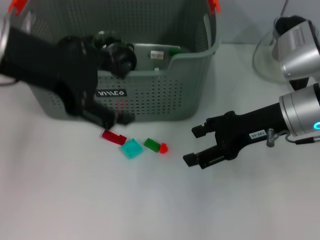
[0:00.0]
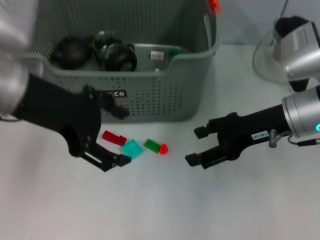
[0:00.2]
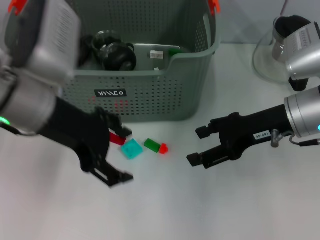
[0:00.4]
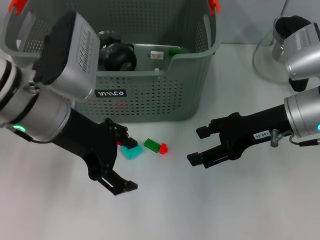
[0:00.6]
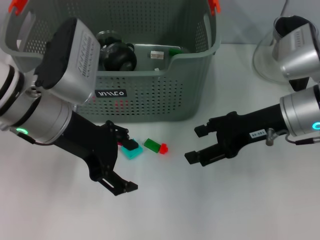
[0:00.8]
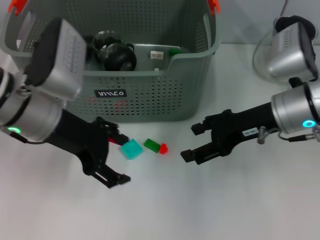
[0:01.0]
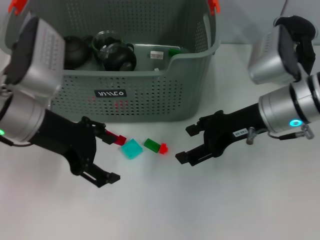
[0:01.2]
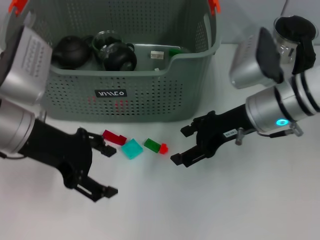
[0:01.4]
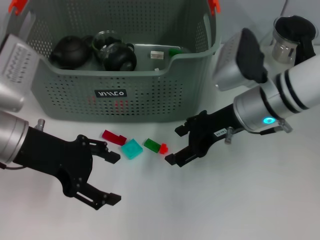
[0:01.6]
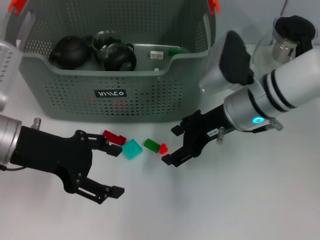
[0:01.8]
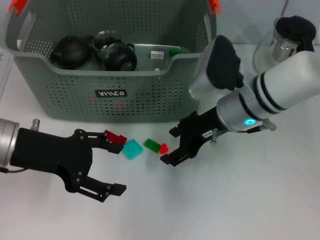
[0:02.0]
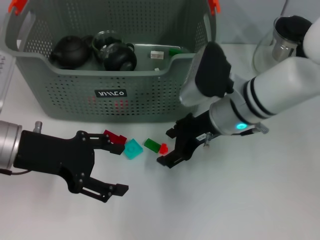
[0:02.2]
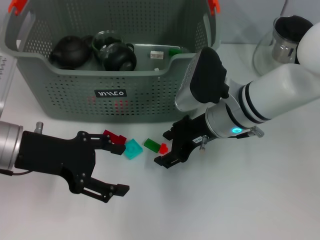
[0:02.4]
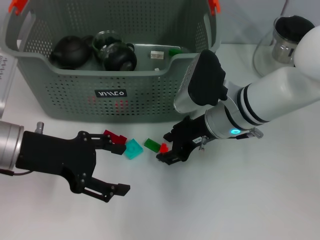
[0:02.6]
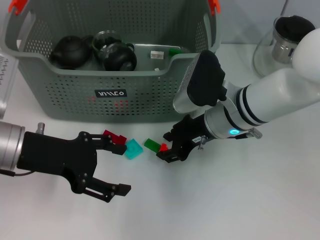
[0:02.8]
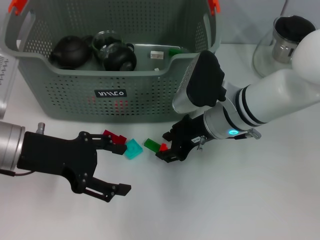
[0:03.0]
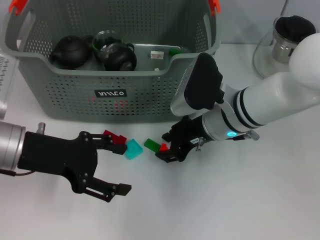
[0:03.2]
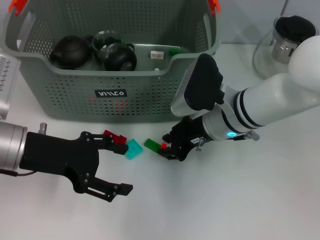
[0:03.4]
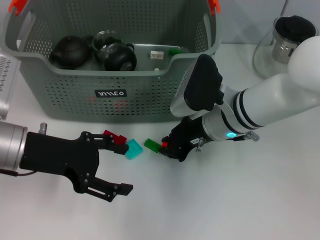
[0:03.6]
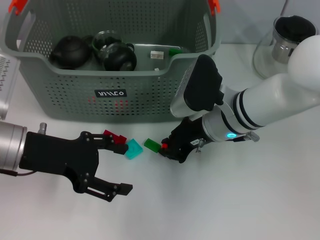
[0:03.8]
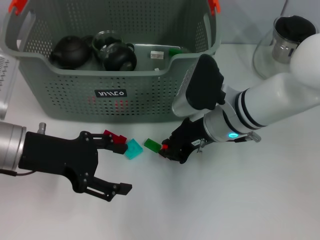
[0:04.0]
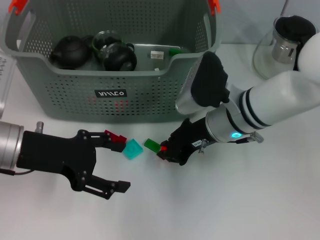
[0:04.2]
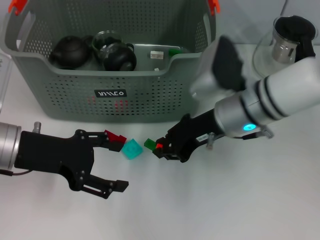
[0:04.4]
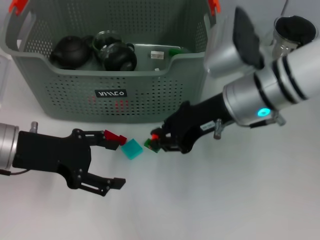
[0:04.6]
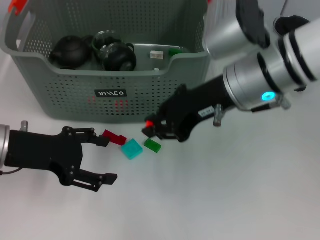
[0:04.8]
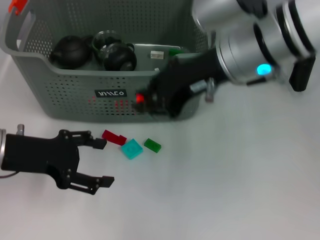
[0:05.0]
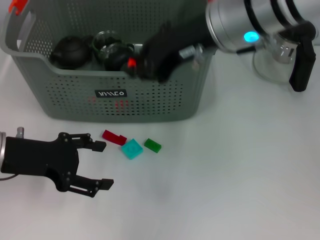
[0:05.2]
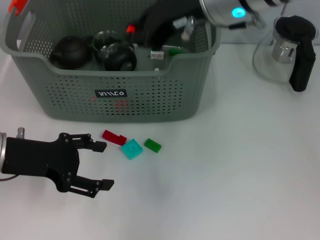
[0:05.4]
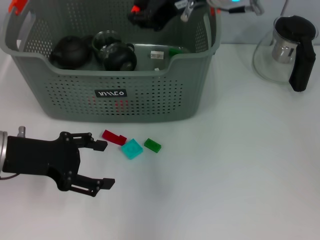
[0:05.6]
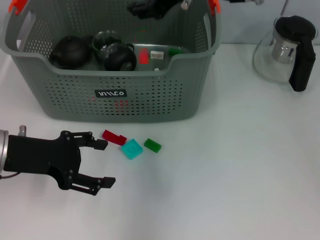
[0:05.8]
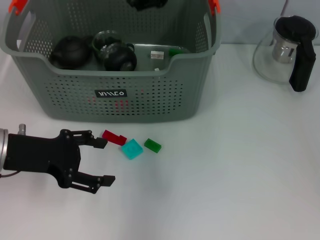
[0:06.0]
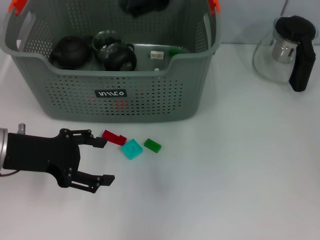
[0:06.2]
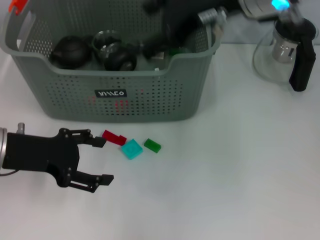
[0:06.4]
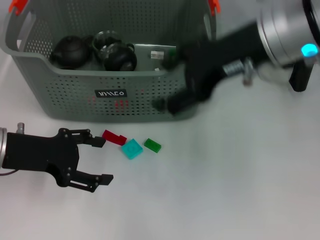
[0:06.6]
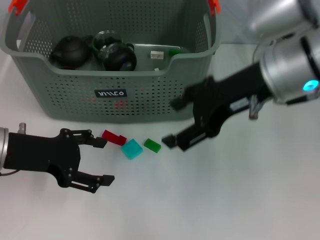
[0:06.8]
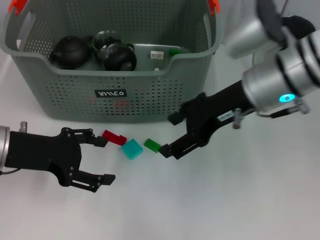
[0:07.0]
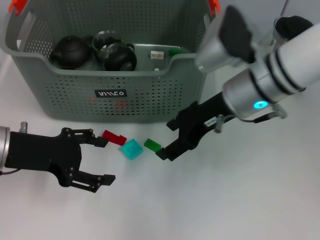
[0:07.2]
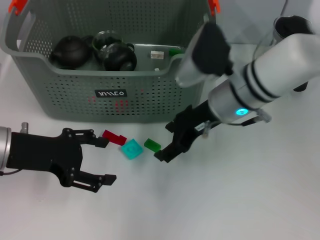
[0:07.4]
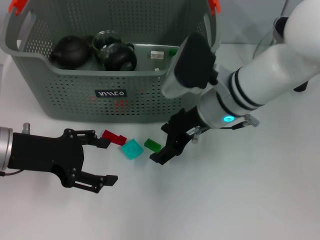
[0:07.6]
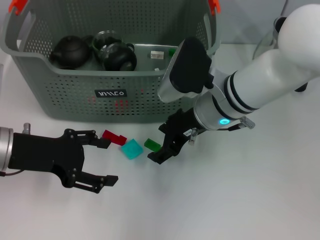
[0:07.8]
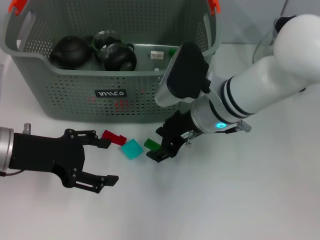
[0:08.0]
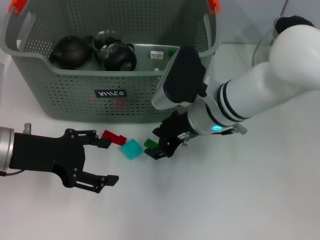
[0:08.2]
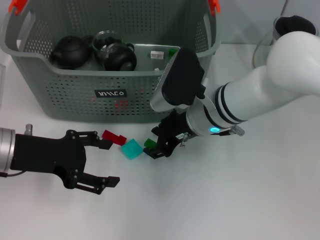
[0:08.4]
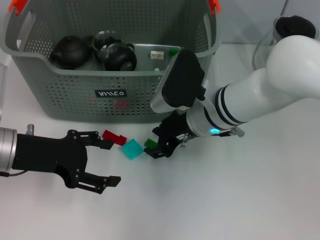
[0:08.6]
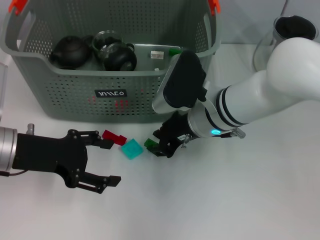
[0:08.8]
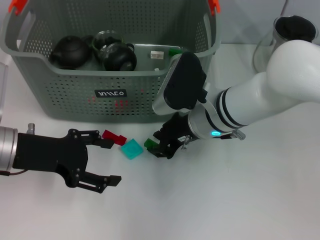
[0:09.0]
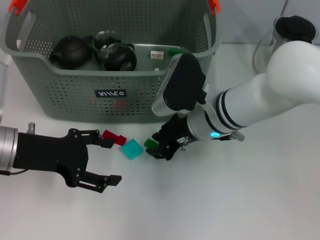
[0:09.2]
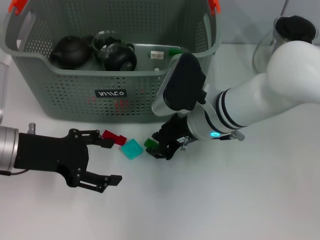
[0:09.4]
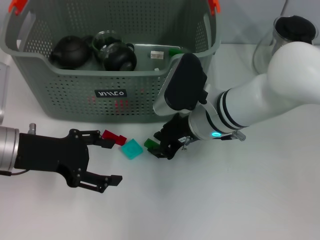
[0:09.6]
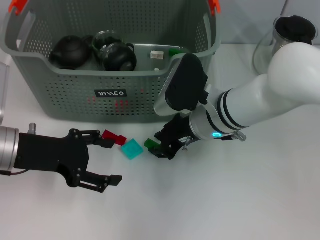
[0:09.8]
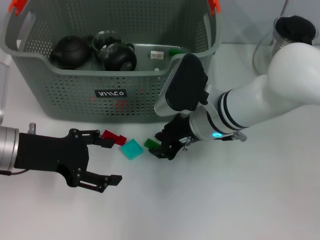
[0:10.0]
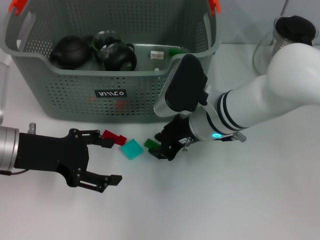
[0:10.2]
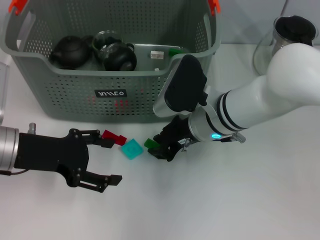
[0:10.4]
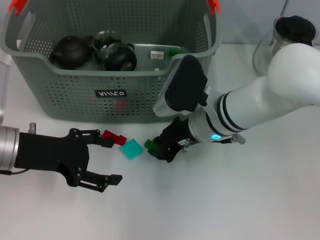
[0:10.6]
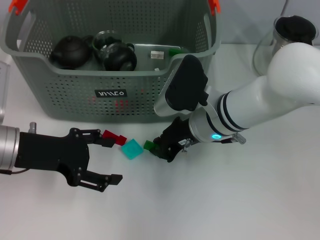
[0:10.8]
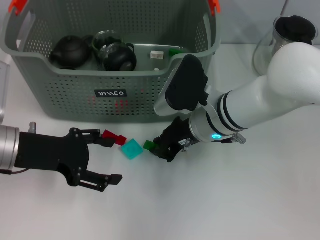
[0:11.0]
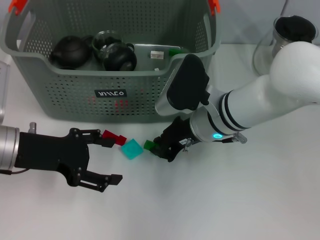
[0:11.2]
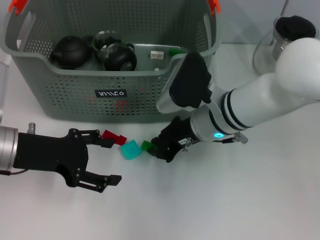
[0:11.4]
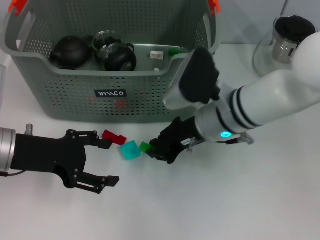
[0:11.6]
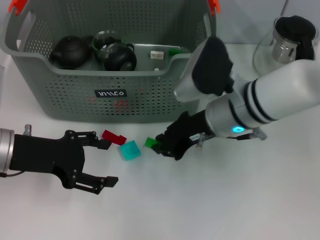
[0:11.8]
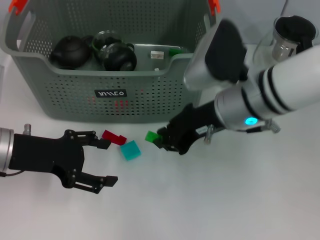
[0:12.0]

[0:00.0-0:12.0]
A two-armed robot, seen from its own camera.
Task of the whole recording: pick up the teacup on the table and place it into the storage bin, pick up the block on the table and place it into the storage bin.
Step, 0:00.0 to 0:03.6: Grasp the orange block with right gripper.
Step, 0:04.0 to 0:05.8: Place the orange block in the storage box with right gripper.
Step, 0:06.0 to 0:11.0: Grasp the green block with right gripper.
0:00.0 to 0:01.6: The left gripper heads downward, covering approximately 10 cm, while the right gripper shifts about 5 cm to the left.
0:01.6 to 0:03.0: The right gripper shifts by roughly 5 cm, and closes its fingers.
0:03.0 to 0:04.4: The right gripper closes up.
0:04.4 to 0:06.0: The right gripper heads upward and forward, covering roughly 20 cm, and opens.
0:06.0 to 0:07.6: The right gripper moves downward, approximately 15 cm, and opens its fingers.
0:07.6 to 0:09.0: The right gripper closes up.
0:09.0 to 0:10.4: The two grippers keep their place.
0:10.4 to 0:12.0: The right gripper goes about 5 cm upward.

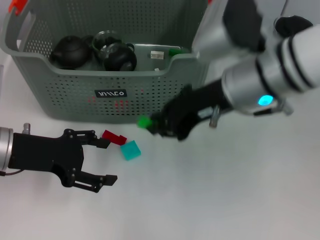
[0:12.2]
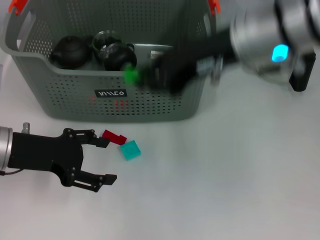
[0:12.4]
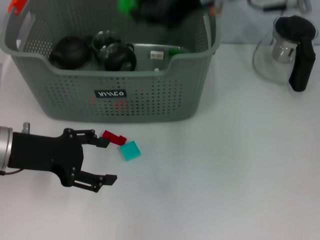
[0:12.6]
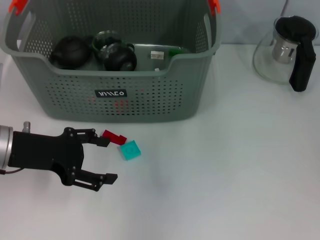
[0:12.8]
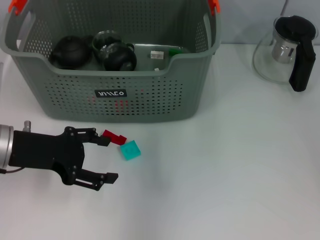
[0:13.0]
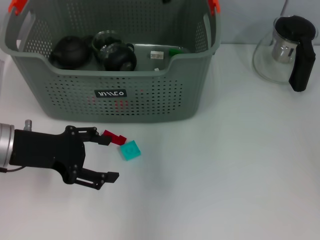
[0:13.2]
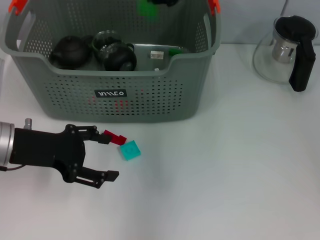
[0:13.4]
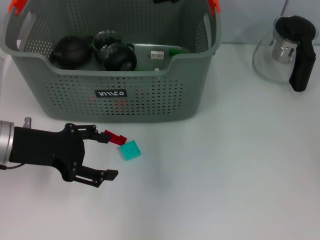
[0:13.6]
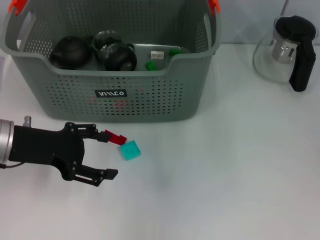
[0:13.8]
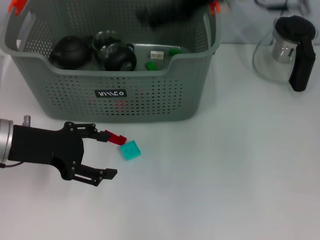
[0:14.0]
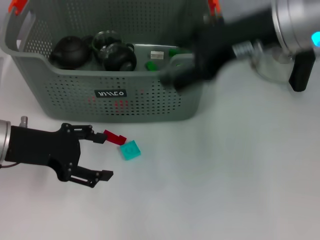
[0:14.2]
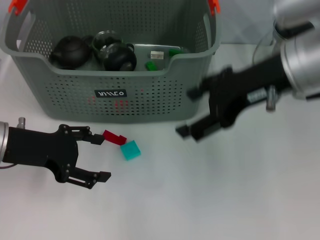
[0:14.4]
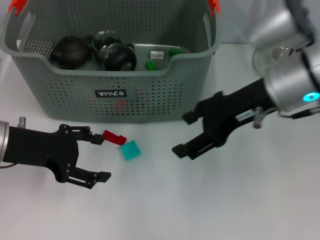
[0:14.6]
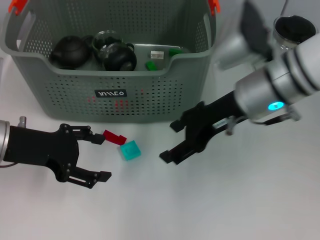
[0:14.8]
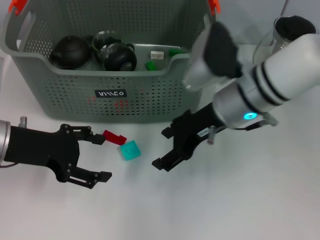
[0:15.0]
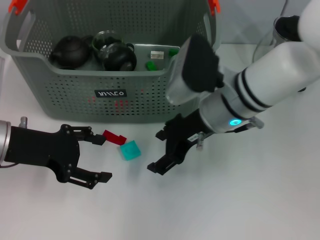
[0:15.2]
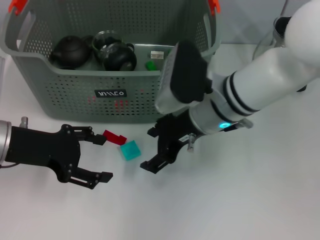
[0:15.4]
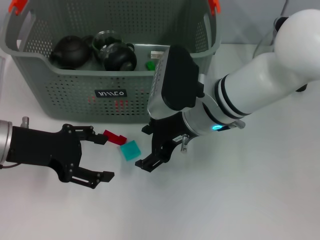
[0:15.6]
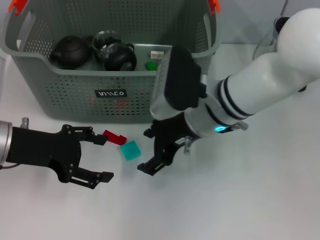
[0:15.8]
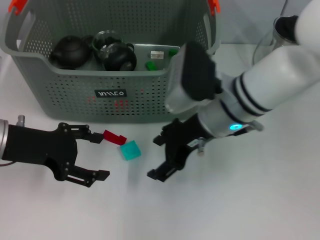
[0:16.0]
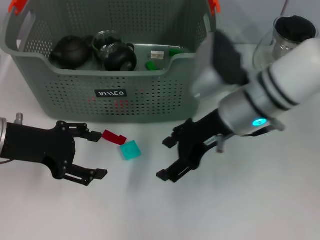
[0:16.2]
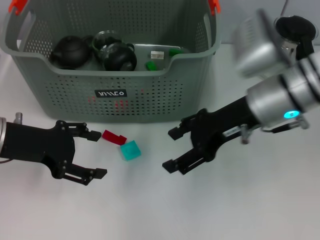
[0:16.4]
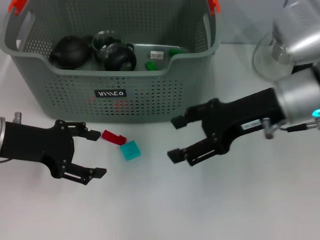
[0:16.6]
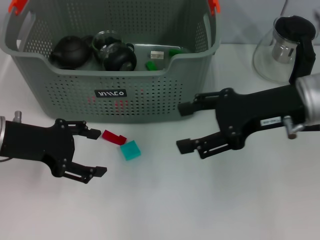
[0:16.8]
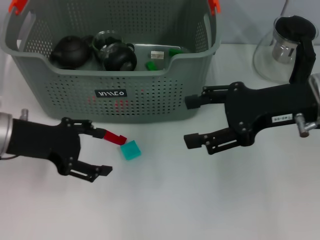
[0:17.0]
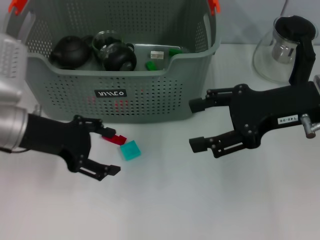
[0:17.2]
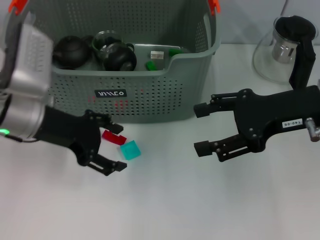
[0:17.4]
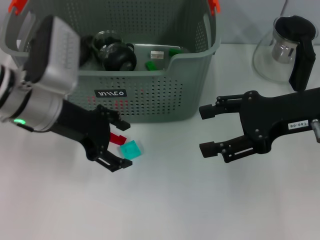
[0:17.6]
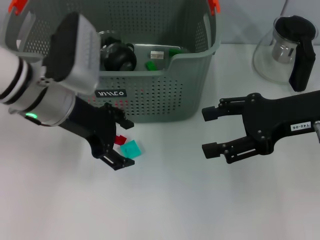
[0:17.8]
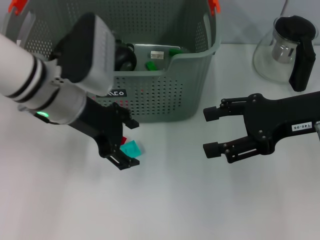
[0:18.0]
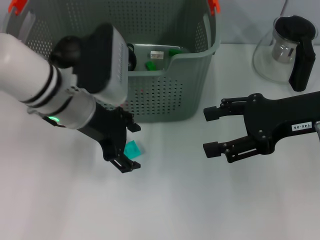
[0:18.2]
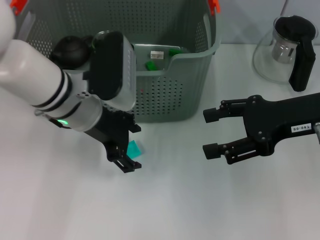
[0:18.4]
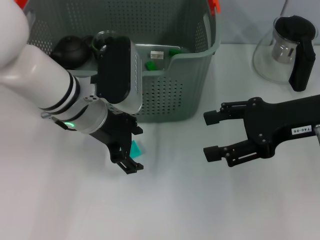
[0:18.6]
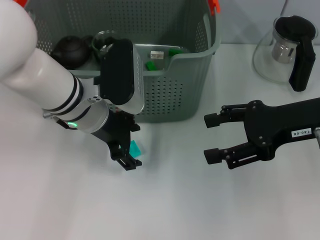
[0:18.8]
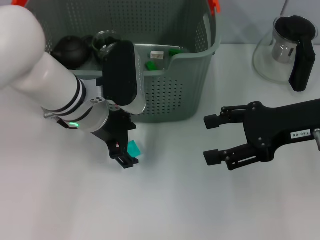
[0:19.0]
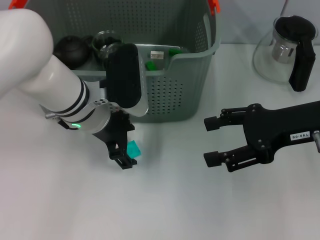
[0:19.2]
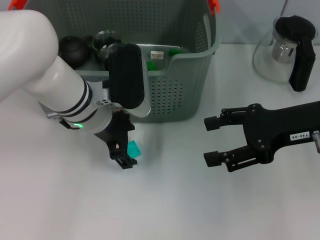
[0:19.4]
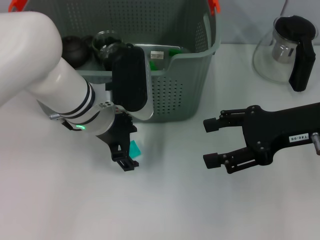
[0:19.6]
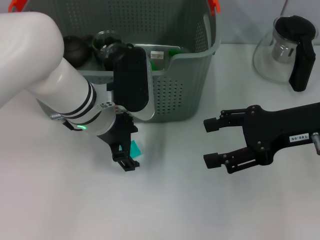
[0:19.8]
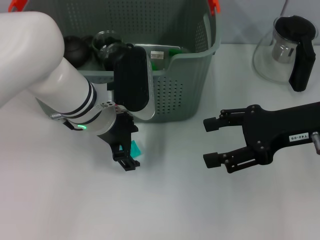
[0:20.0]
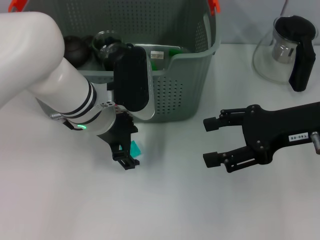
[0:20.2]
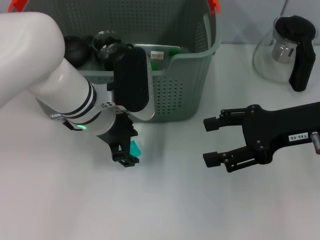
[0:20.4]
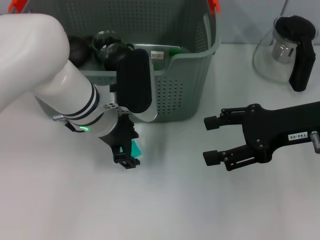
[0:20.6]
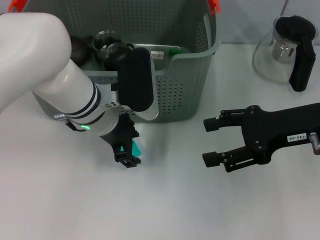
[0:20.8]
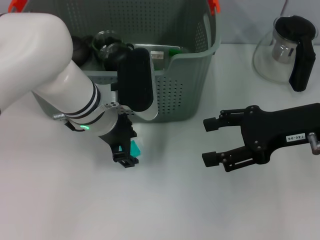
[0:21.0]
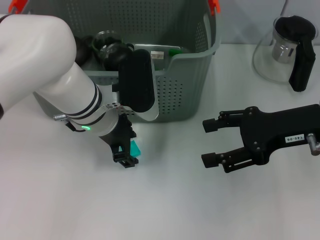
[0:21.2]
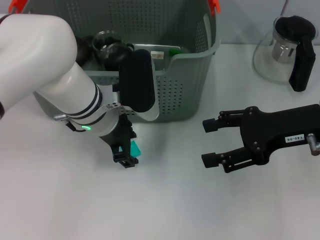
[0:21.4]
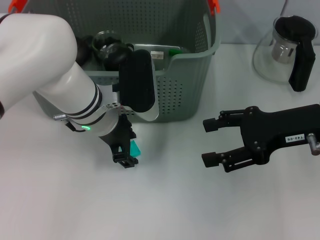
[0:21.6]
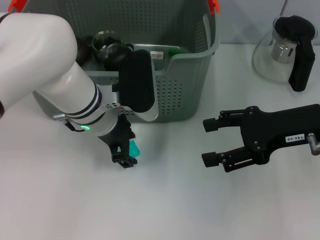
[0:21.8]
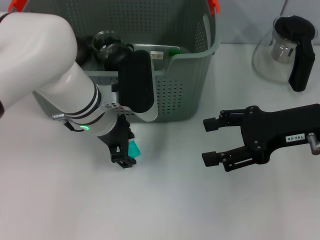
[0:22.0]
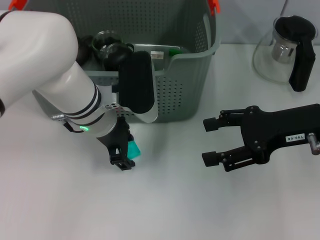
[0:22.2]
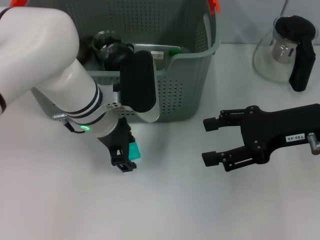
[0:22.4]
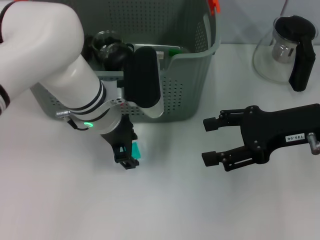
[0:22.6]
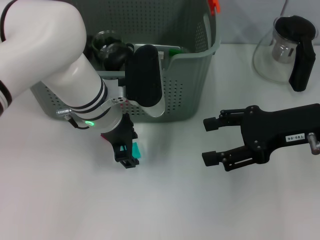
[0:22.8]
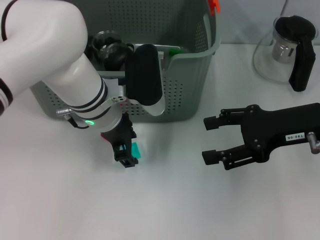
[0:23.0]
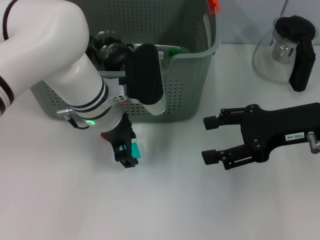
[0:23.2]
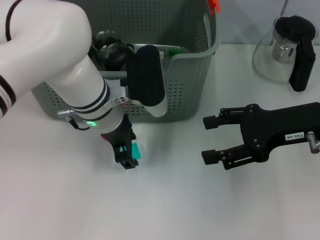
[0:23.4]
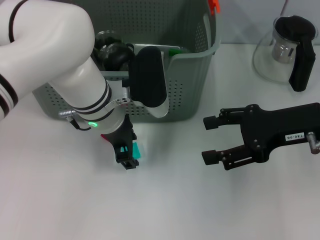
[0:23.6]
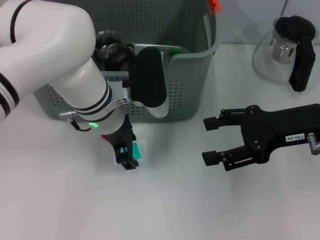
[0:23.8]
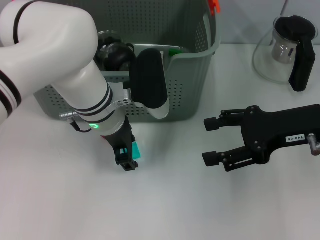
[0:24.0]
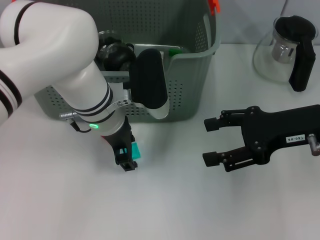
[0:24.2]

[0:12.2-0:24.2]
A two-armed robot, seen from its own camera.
Task of the whole recording: pick up the teacup on the table and place it into the storage bin, pick up the block on the table and place it into the storage bin.
Step, 0:12.2 to 0:13.6: Place the green block in the storage box with right gripper.
0:12.2 to 0:13.8: The right gripper heads upward and forward, covering about 10 cm, and opens its fingers.
0:13.8 to 0:15.2: The right gripper is displaced downward by roughly 15 cm, and opens.
0:15.2 to 0:16.6: The right gripper goes approximately 10 cm to the right.
0:16.6 to 0:18.2: The left gripper is displaced to the right by some 10 cm, while the right gripper shifts roughly 5 cm to the right.
0:19.8 to 0:22.6: Both grippers stay about where they are.
0:22.6 to 0:24.2: Both grippers stay put.
